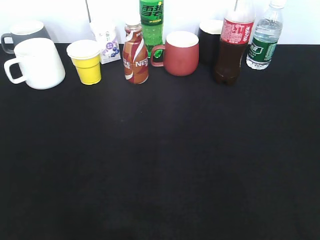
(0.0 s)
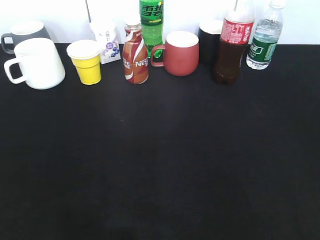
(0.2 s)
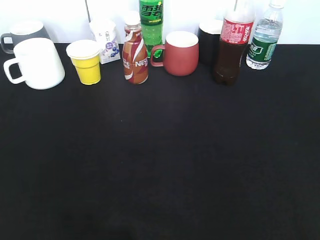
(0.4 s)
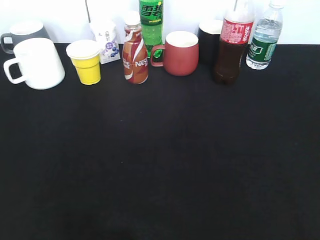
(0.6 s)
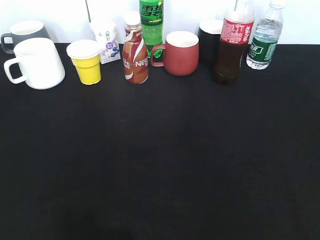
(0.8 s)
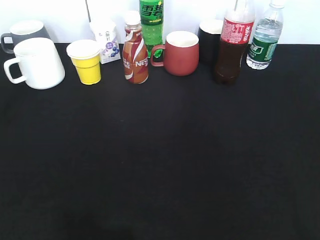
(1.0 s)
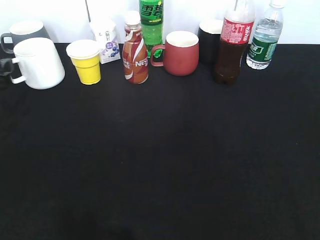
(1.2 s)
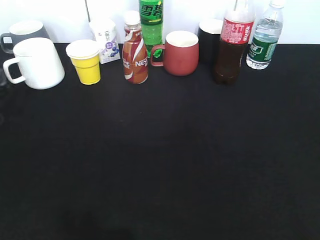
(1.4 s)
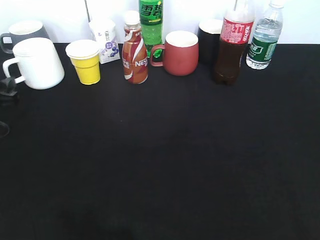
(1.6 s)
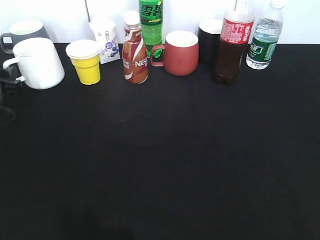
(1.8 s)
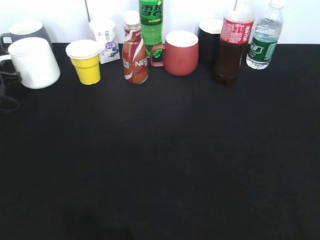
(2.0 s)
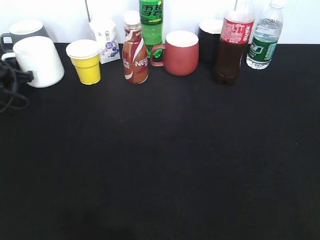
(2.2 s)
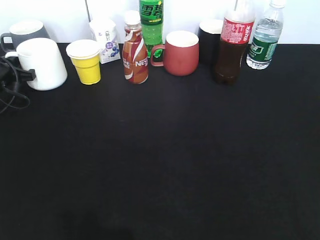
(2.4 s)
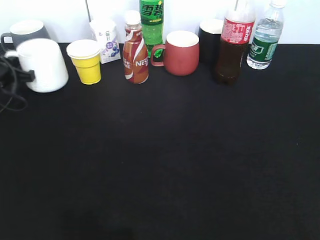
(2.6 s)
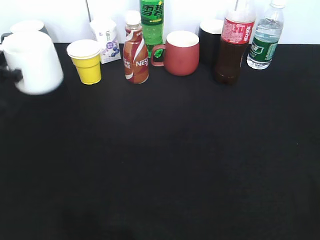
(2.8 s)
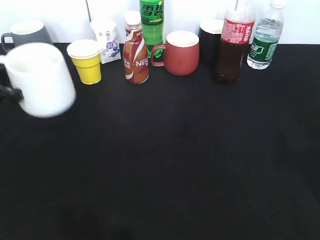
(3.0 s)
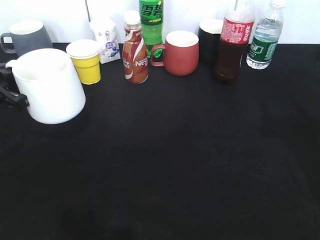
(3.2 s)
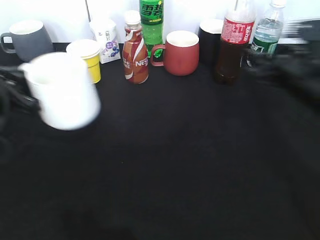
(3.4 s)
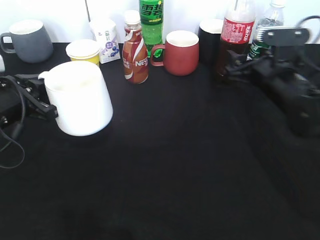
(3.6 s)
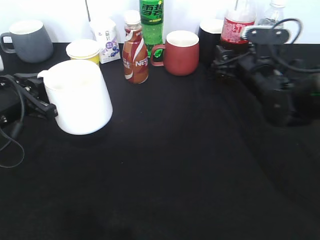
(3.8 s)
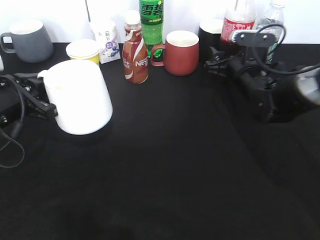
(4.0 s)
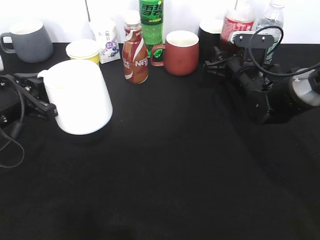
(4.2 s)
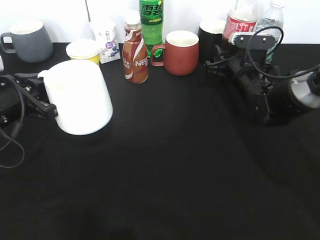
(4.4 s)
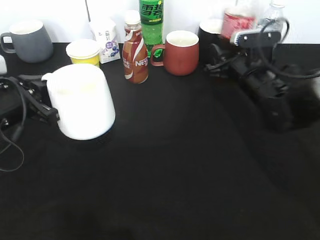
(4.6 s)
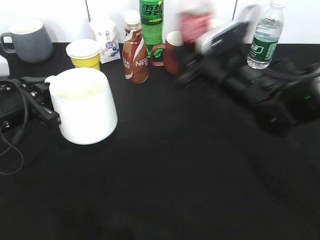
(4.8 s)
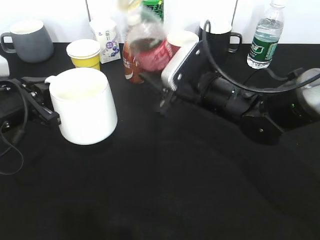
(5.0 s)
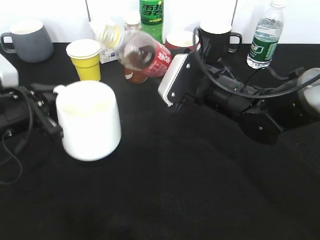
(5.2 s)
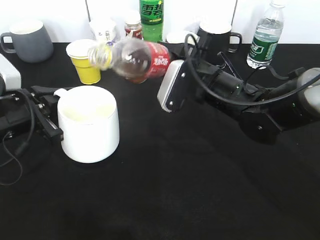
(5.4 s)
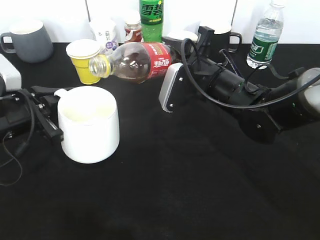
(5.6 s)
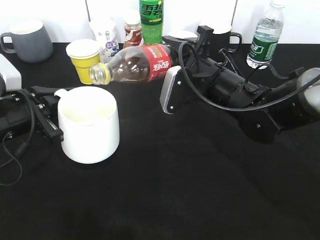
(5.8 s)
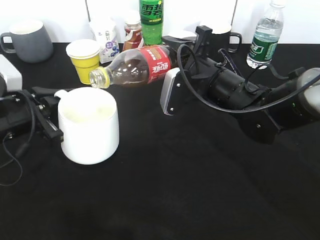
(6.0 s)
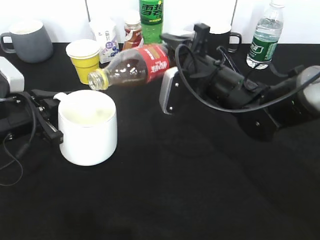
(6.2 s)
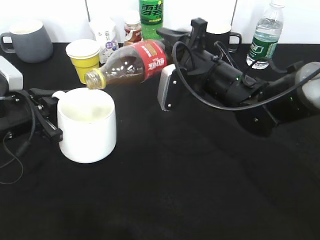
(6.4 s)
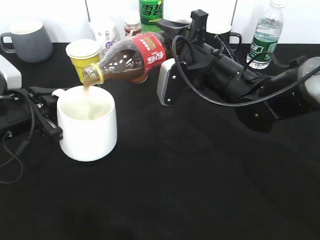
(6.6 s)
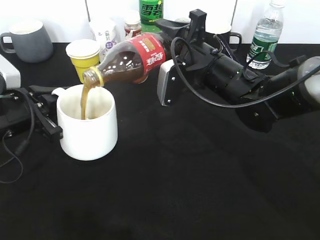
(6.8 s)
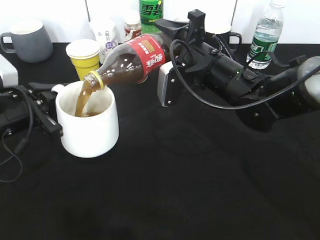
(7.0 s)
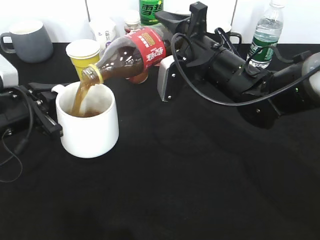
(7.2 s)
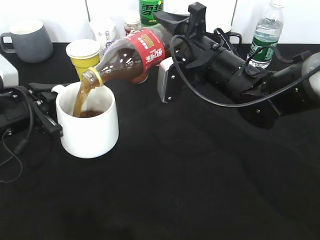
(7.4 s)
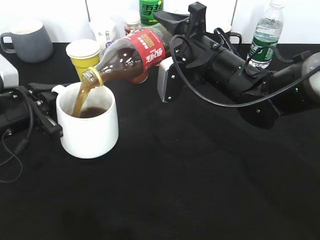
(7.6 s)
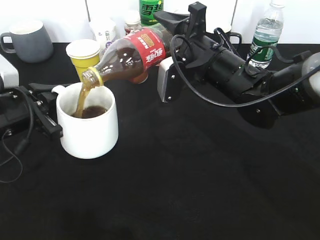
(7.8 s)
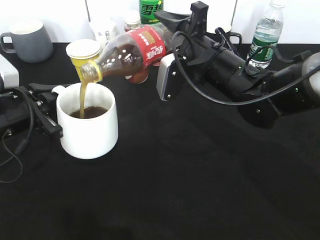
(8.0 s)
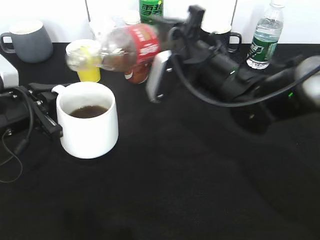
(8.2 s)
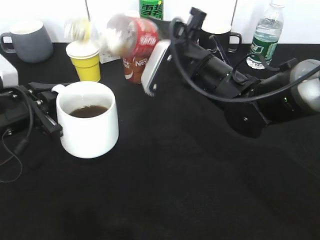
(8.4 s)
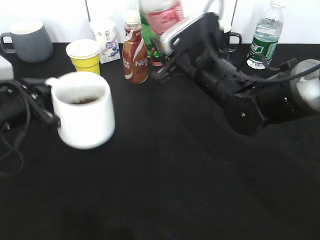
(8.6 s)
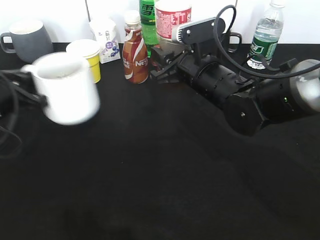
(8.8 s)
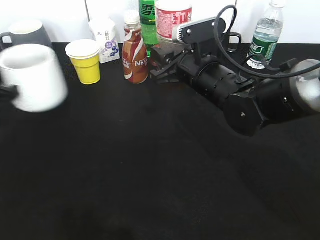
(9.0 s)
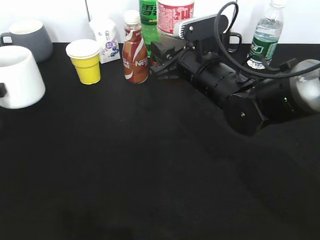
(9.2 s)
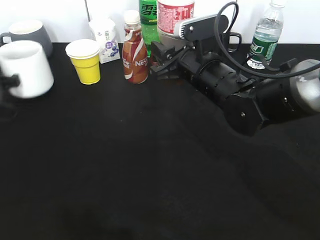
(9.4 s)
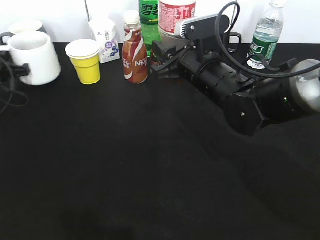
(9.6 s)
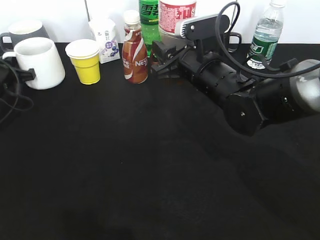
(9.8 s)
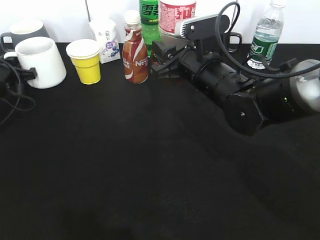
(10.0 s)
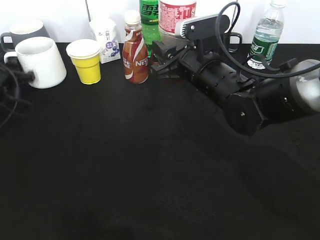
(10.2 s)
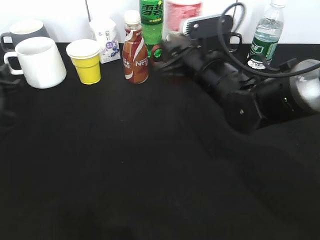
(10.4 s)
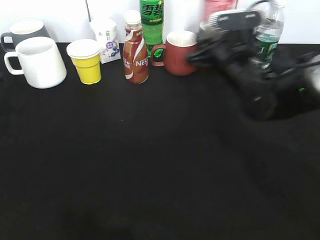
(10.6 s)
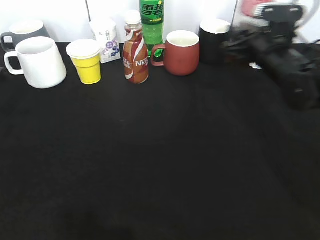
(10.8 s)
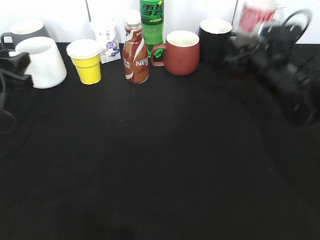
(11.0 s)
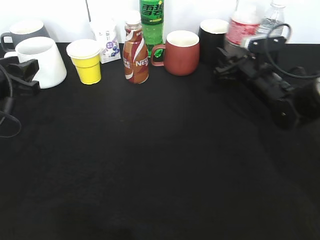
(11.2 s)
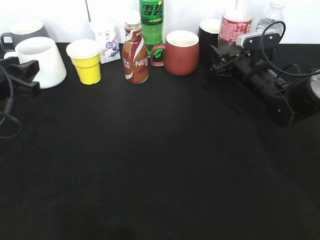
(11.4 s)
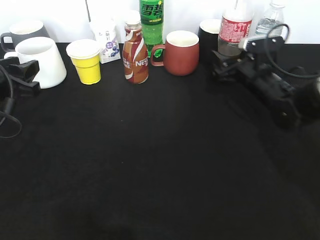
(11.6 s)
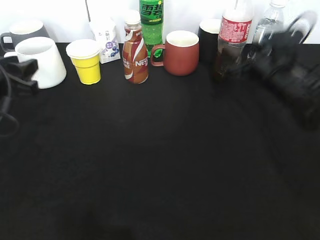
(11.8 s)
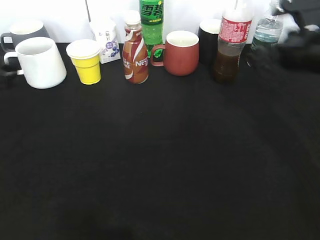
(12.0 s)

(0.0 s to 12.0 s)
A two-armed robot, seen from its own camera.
Step, 0.0 s - 2.2 s: Grasp the white cup with left gripper.
Step, 2.4 s - 3.0 s: Lift the white cup with left gripper.
Step, 3.2 s - 4.4 s: Grasp the bottle with cola with right gripper.
Step, 4.6 s - 8.4 s: Pour the cola from bottle to cup with right gripper.
Step, 8.6 s - 10.4 s: Place the white cup on the table with left gripper.
Step, 10.6 s - 11.8 s: Place the cola bottle on the table with right gripper.
0.0 s - 1.6 s: The left gripper moves forward and downward, about 35 cm.
1.6 s - 3.0 s: The left gripper travels forward and back again, roughly 10 cm each way, and closes its fingers. The right gripper goes about 15 cm forward.
3.0 s - 4.4 s: The right gripper shifts about 35 cm forward, downward and to the left, and closes its fingers. The left gripper goes about 5 cm to the right.
4.4 s - 6.0 s: The right gripper is displaced to the left, backward and upward by about 15 cm.
6.0 s - 7.6 s: The grippers move only a little.
7.6 s - 9.0 s: The left gripper travels to the left by some 10 cm.
9.0 s - 10.4 s: The left gripper opens up.
10.4 s - 12.0 s: The right gripper heads to the right, covering some 15 cm, and opens its fingers. Meanwhile the left gripper goes approximately 15 cm upward, backward and to the right.

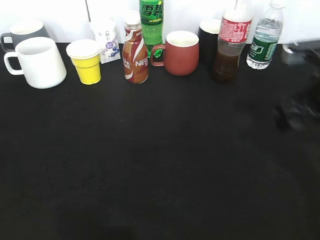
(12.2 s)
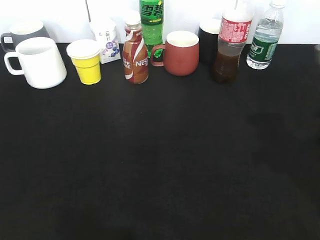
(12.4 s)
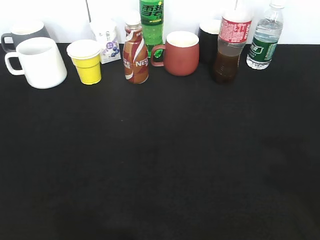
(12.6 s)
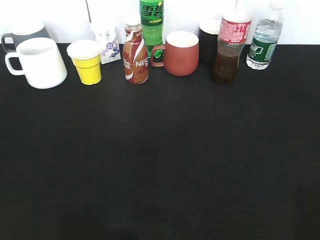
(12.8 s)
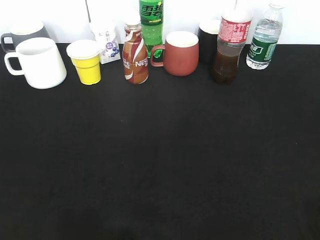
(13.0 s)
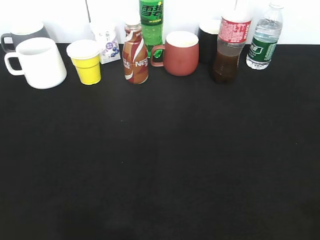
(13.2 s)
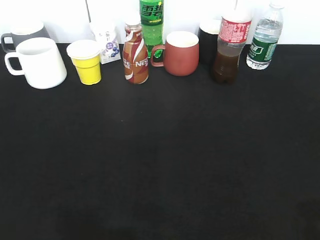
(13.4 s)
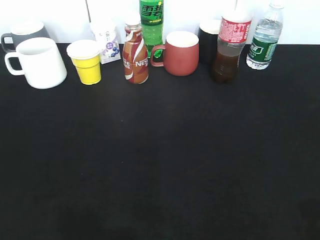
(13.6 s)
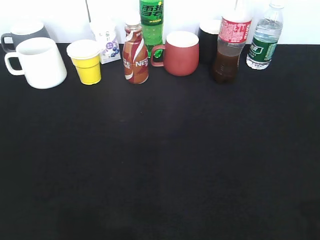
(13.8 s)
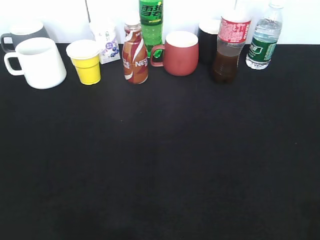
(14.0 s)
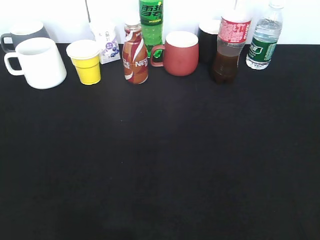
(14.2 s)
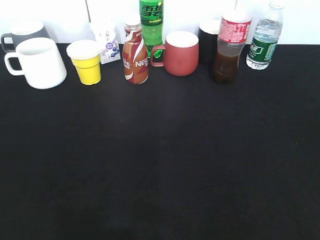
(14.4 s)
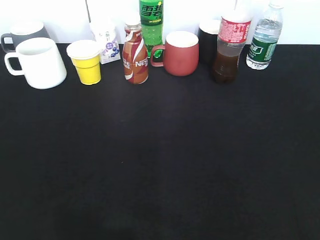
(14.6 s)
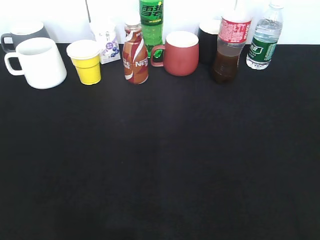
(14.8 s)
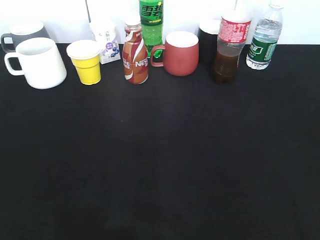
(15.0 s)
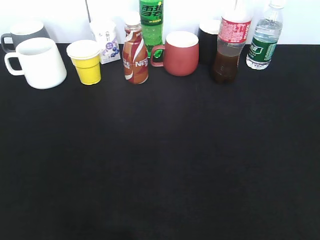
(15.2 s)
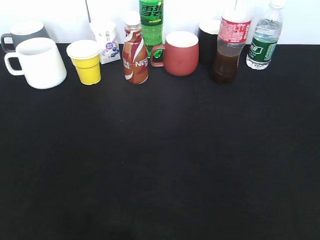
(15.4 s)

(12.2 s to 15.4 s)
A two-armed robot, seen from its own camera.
12.2 s - 13.8 s: The left gripper travels backward by some 15 cm, and opens its fingers. Meanwhile the right gripper travels backward by roughly 25 cm.

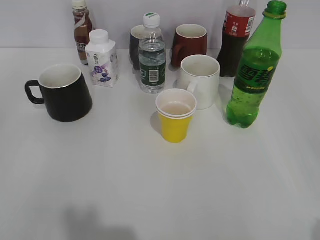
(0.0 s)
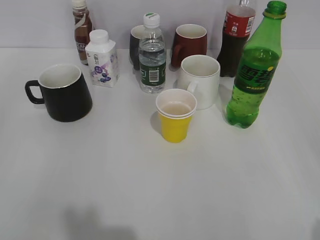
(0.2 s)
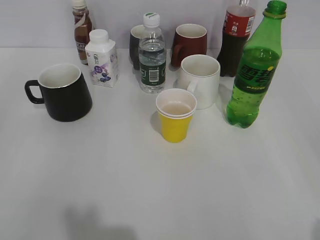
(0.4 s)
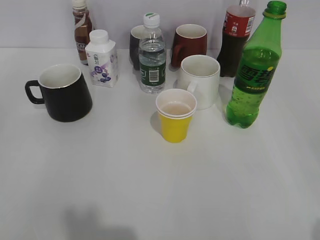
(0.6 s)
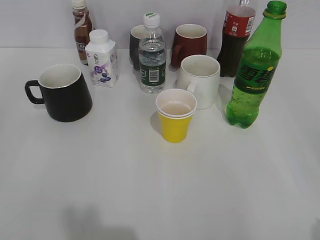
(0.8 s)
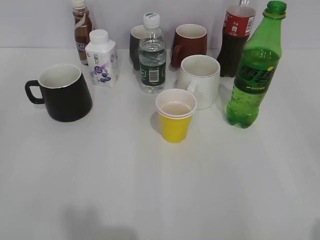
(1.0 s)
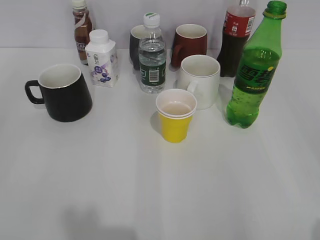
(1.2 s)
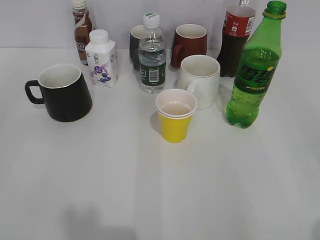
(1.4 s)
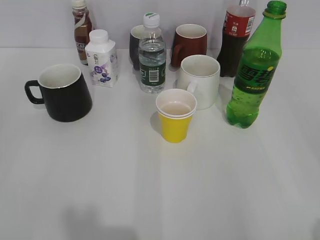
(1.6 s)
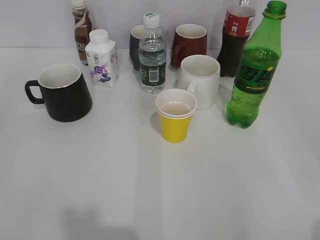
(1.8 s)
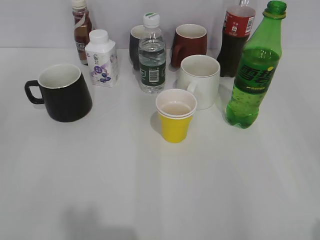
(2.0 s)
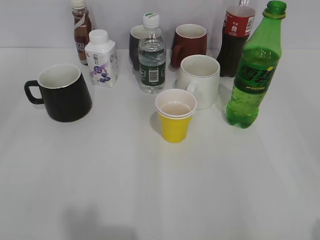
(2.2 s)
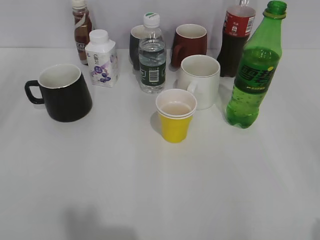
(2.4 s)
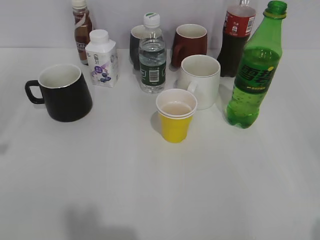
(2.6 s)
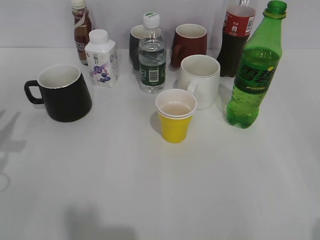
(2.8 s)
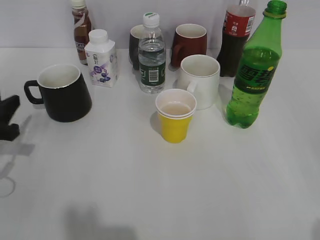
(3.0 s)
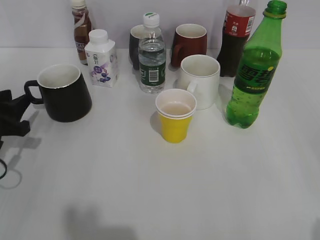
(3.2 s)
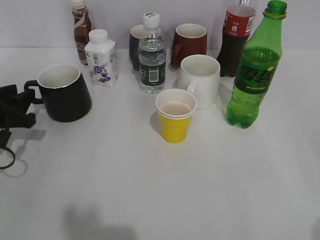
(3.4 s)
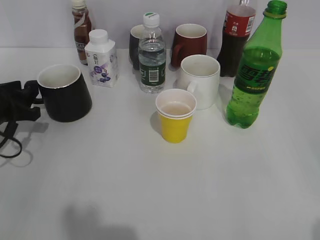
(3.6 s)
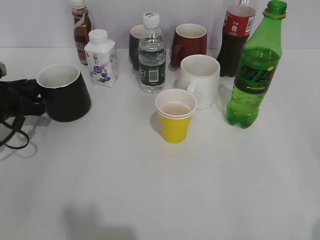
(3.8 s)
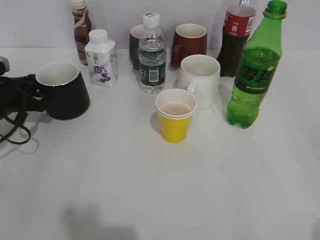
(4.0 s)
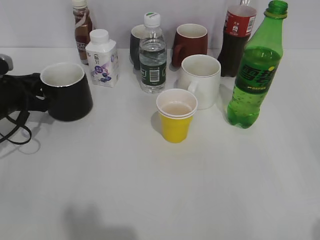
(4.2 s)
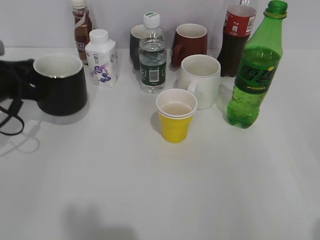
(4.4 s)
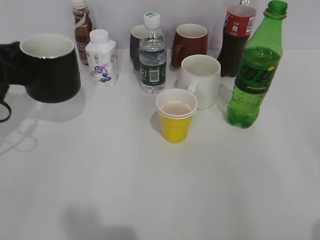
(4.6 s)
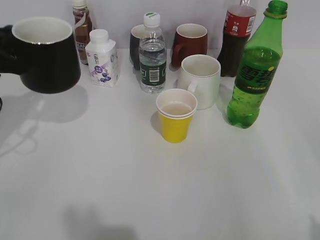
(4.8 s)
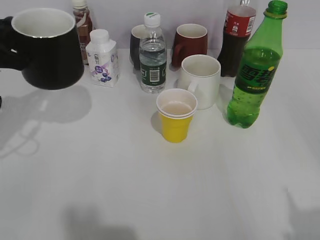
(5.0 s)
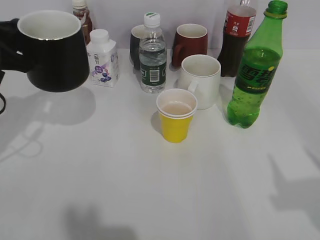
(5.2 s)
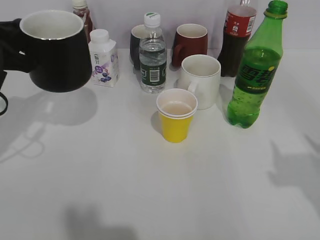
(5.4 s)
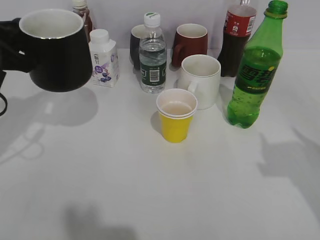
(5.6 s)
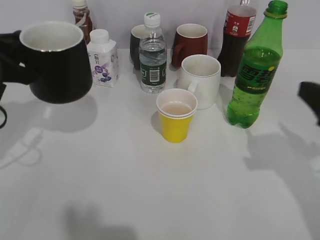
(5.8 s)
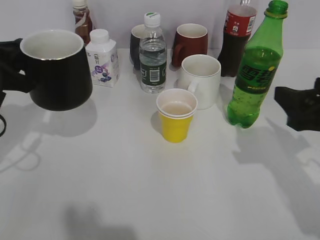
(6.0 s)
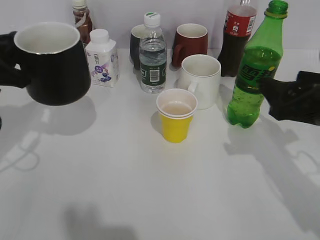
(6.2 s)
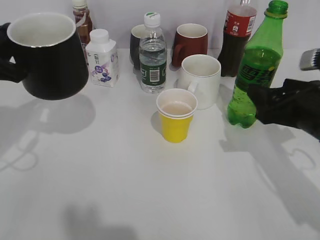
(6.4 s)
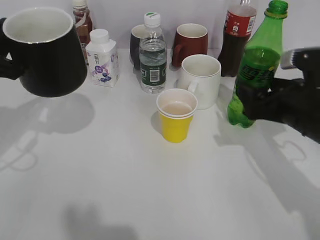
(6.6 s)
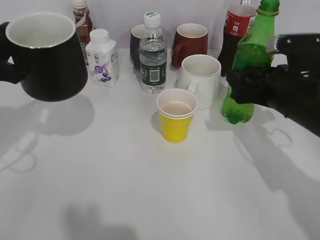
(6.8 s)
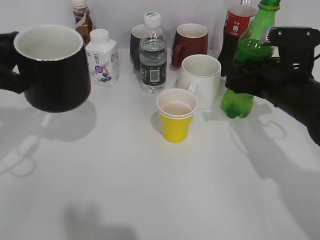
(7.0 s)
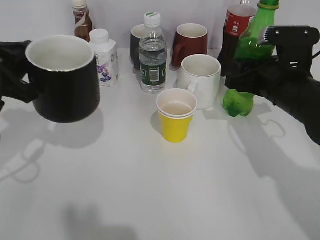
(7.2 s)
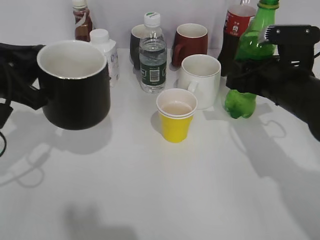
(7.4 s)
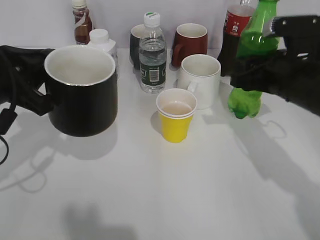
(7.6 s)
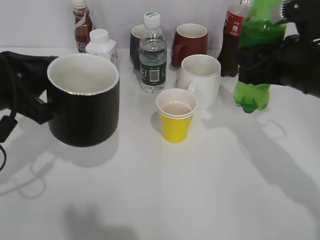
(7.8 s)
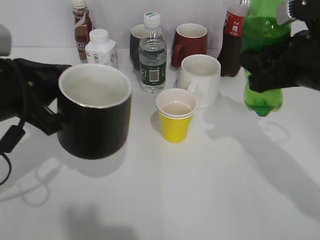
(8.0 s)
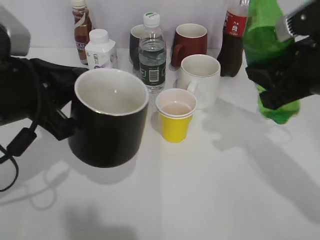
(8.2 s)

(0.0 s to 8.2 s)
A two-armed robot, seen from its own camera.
Step, 1.8 s - 3.8 s: Grasp the black cup with left gripper.
Step, 4.2 s - 5.2 s: Lift the black cup with left gripper.
Step, 5.4 s - 7.0 s: Grasp the bottle with sprite with right gripper.
1.6 s - 3.2 s: The left gripper is displaced forward and downward by roughly 30 cm.
3.2 s - 5.0 s: The left gripper is displaced upward by roughly 10 cm, and closes its fingers.
5.0 s - 6.6 s: The right gripper moves forward and downward, roughly 25 cm.
6.6 s - 8.2 s: The left gripper shifts approximately 5 cm to the right, while the right gripper moves upward, approximately 10 cm, and closes.
